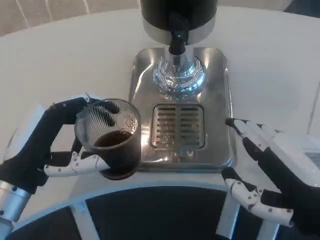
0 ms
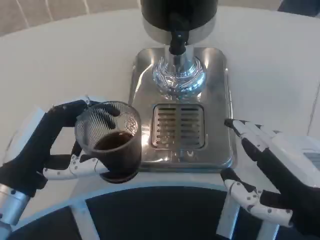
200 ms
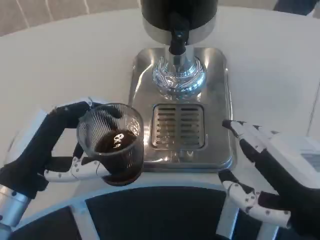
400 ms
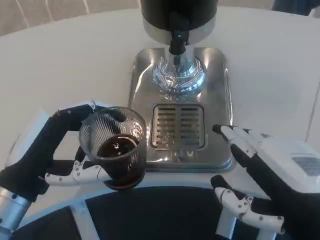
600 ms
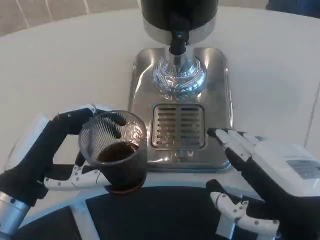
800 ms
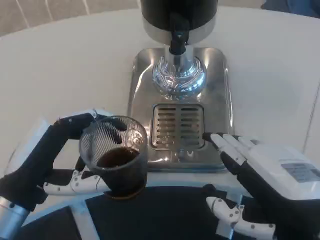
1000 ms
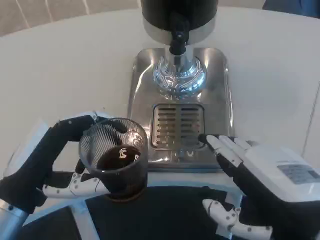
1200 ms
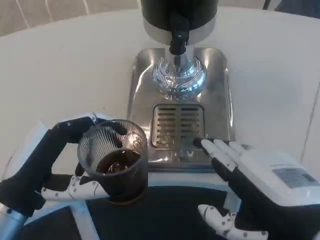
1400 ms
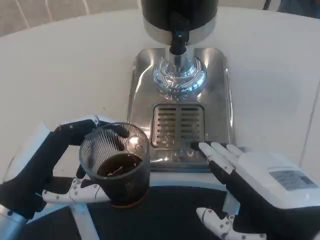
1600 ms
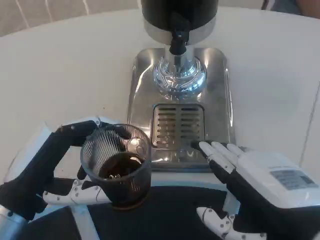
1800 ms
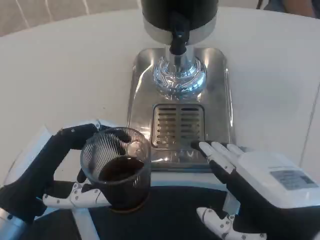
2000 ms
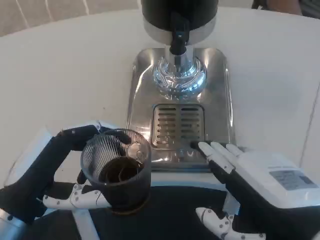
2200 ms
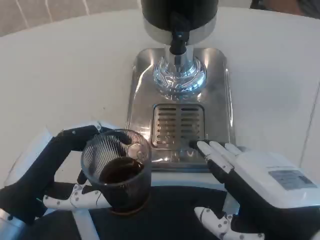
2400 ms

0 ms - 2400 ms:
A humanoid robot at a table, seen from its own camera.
Task of the whole recording: Grasp the cup under the faucet to collect the drink, then remove the cup.
1200 ms - 2400 ms: Neither hand changes place.

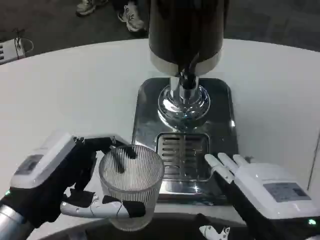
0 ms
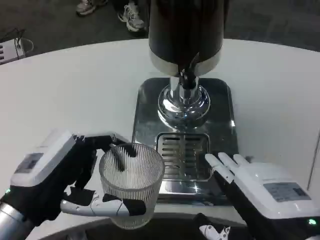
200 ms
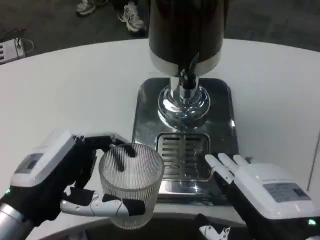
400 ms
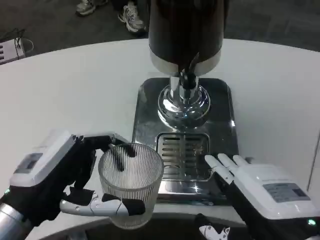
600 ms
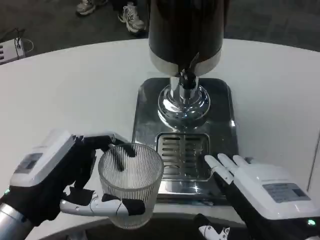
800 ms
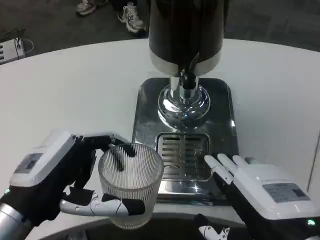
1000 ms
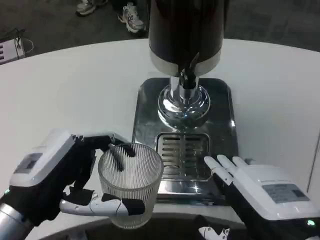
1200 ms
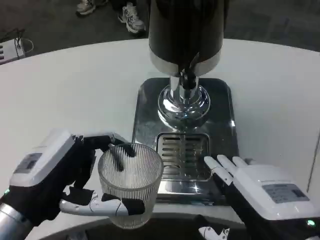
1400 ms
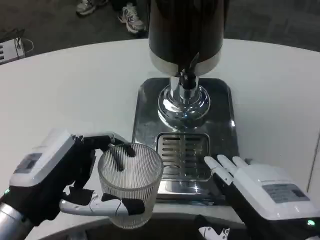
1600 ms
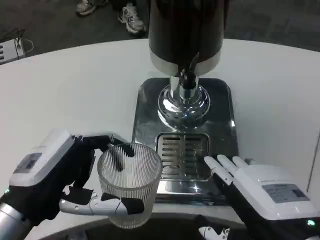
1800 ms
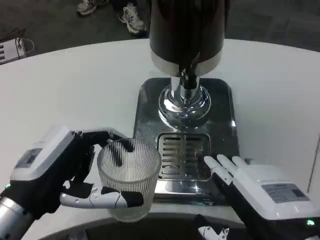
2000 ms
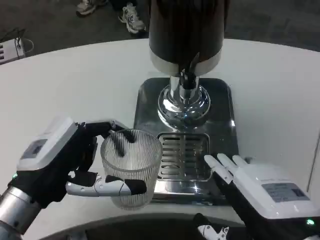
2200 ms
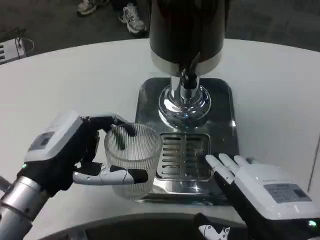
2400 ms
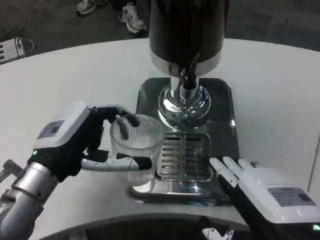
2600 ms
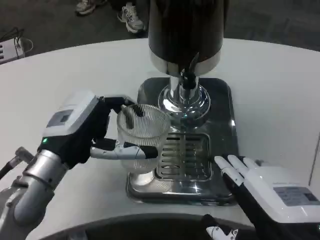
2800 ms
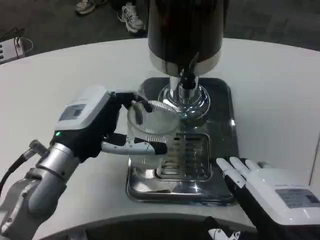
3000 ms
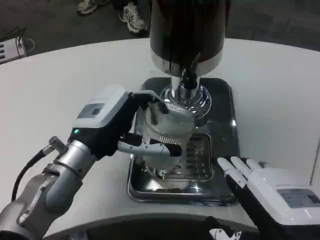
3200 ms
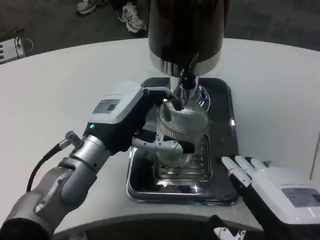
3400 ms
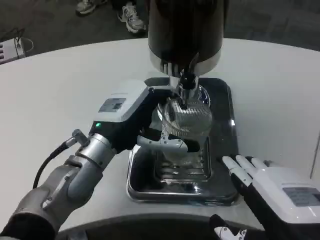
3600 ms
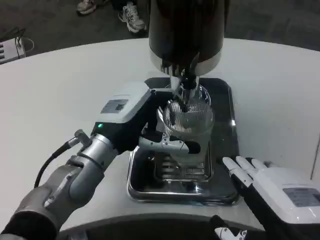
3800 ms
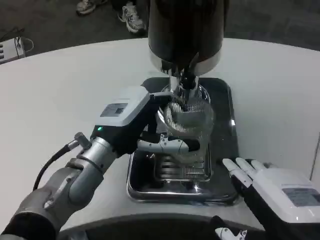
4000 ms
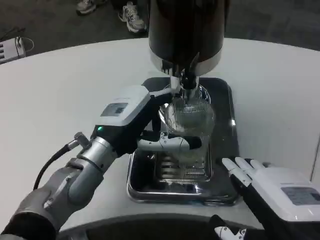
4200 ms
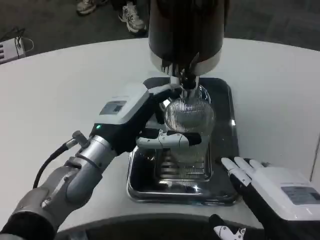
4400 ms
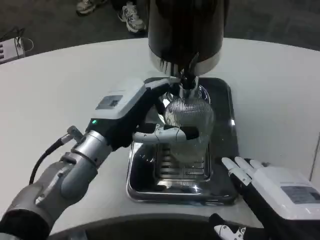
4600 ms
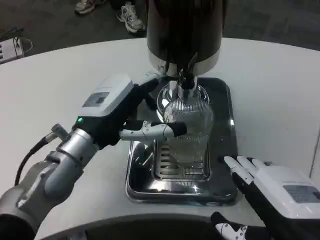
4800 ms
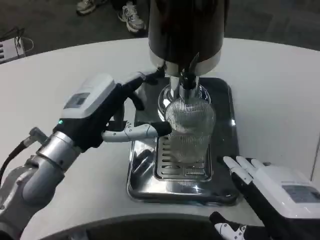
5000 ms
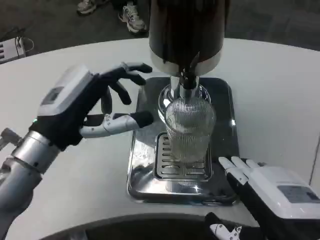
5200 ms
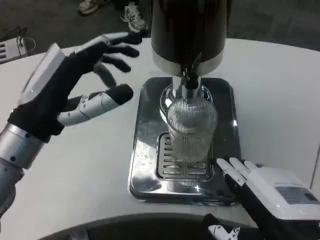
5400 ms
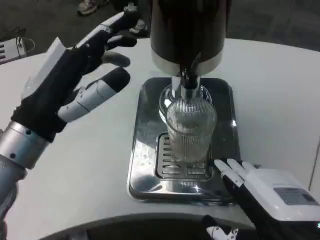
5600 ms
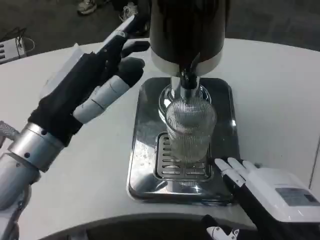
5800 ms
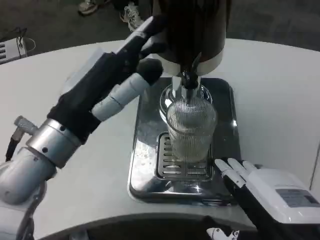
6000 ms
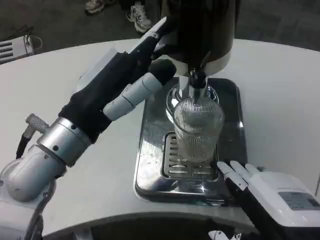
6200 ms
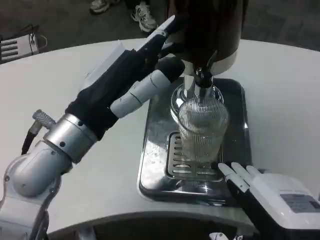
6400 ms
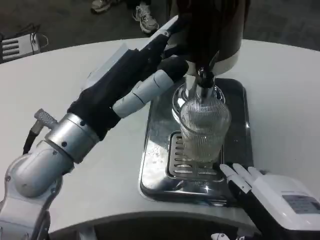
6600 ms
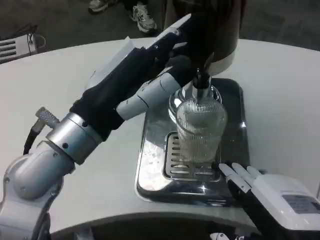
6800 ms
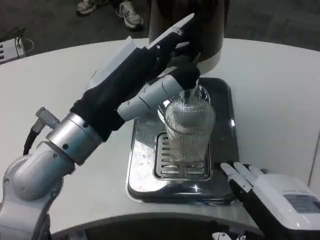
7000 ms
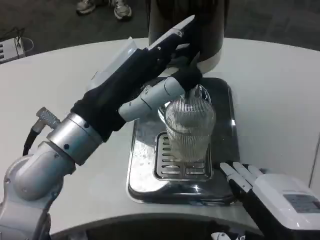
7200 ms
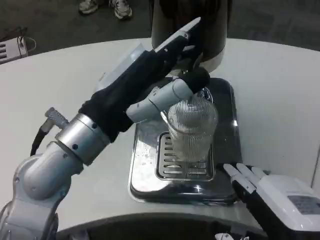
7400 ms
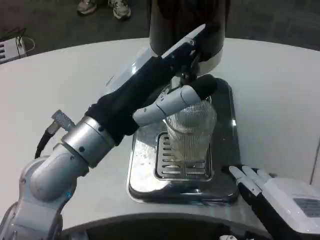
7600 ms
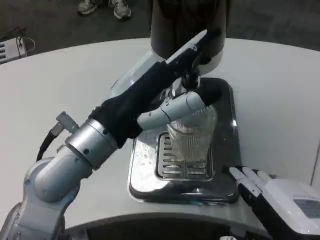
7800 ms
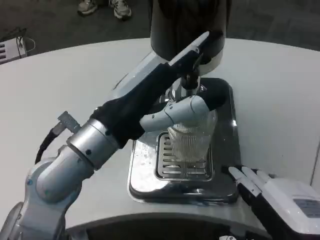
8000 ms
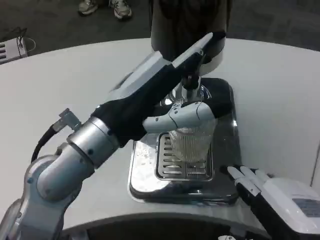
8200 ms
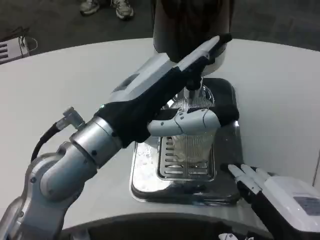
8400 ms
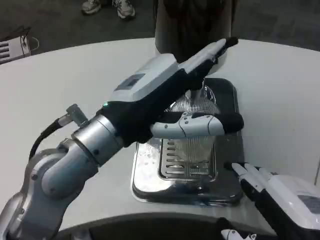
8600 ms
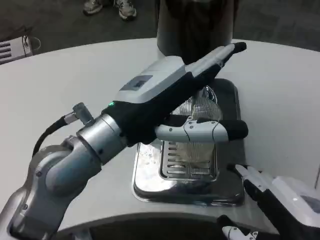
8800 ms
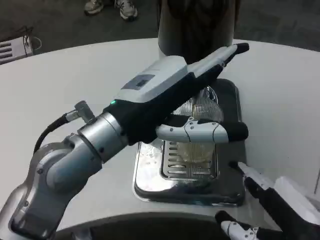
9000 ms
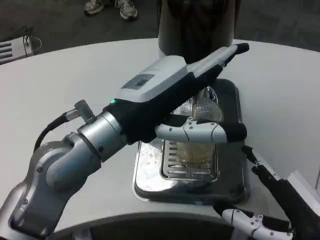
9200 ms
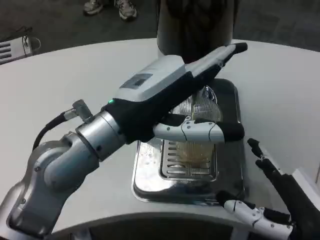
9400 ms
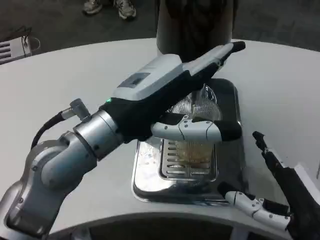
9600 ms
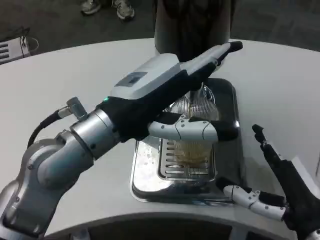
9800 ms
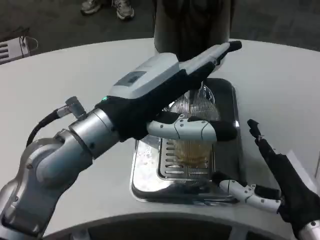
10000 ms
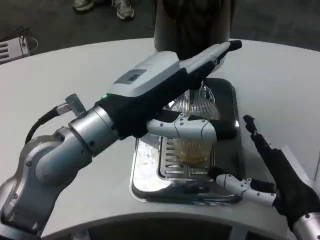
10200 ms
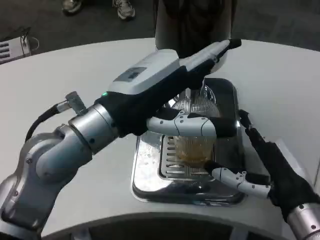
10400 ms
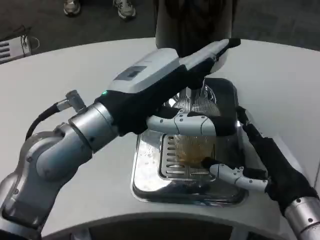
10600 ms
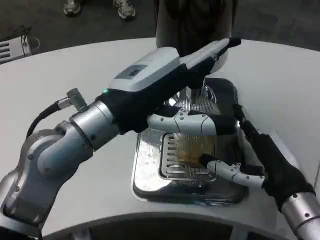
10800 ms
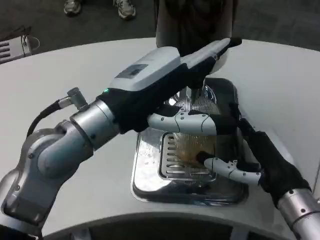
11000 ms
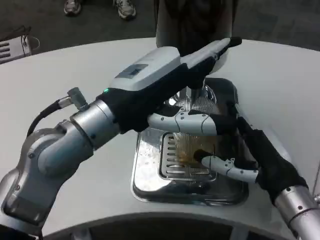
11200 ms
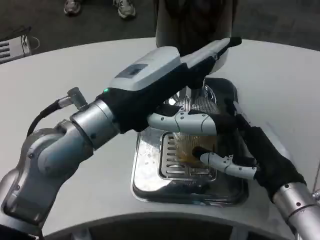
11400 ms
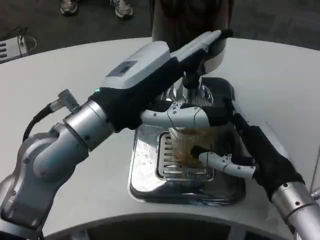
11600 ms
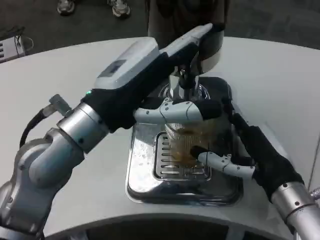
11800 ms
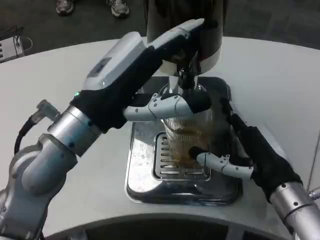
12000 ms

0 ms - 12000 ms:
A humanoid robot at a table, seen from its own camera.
Task of the whole recording: Grasp the cup under the faucet to collect the drink, then remove the cup.
0 ms - 1600 ms: The two hands keep their place.
1600 ms - 3000 ms: The left hand shifts about 10 cm forward.
4400 ms - 6000 ms: The left hand shifts about 10 cm backward and upward.
9000 ms - 10400 ms: The right hand is displaced forward by approximately 10 cm.

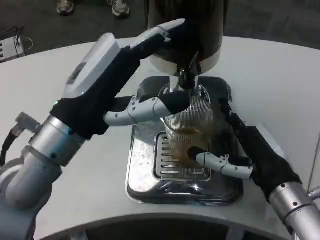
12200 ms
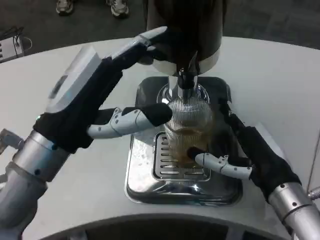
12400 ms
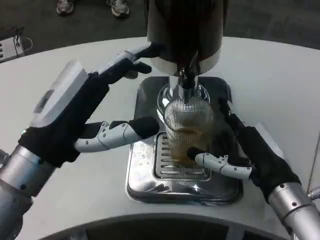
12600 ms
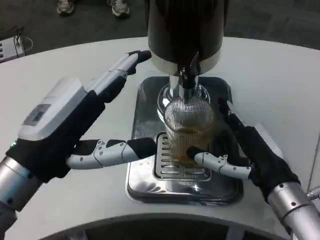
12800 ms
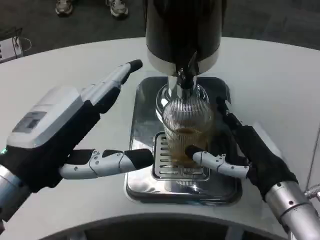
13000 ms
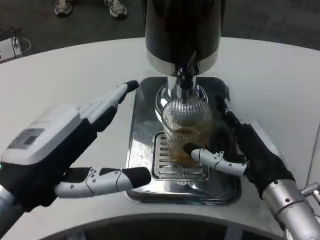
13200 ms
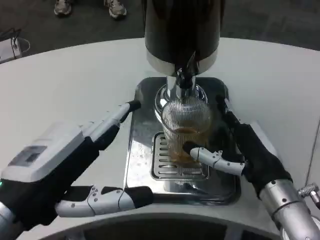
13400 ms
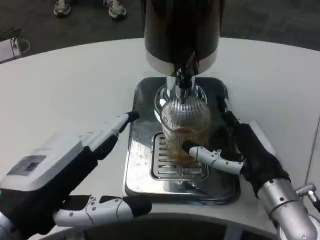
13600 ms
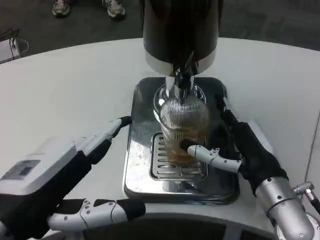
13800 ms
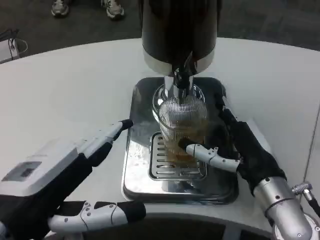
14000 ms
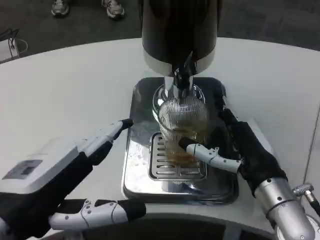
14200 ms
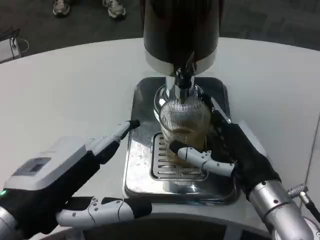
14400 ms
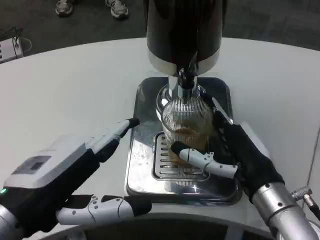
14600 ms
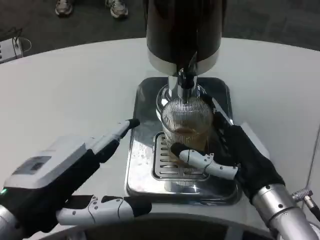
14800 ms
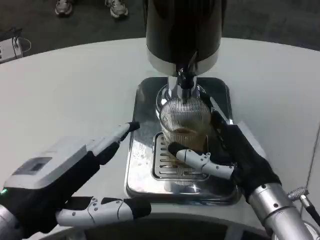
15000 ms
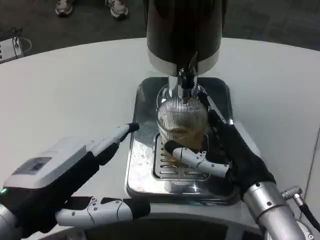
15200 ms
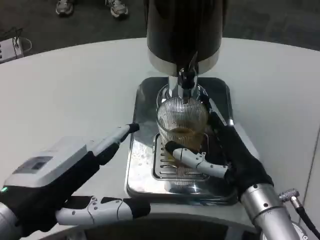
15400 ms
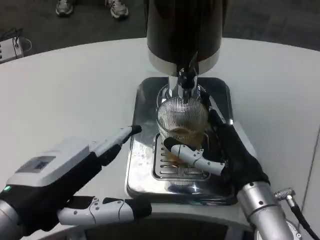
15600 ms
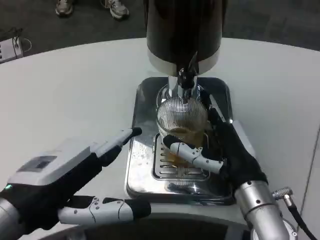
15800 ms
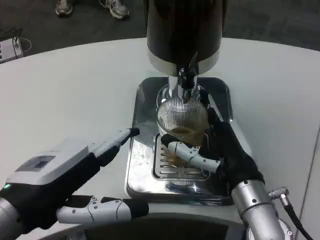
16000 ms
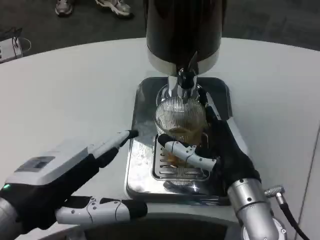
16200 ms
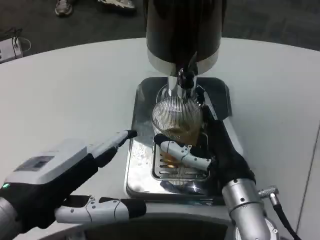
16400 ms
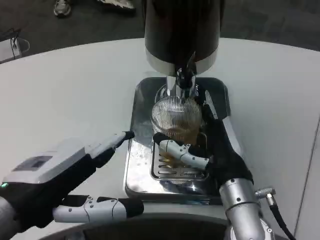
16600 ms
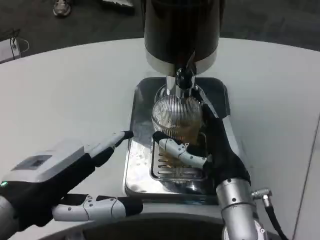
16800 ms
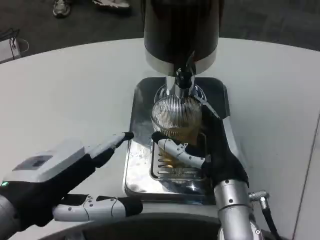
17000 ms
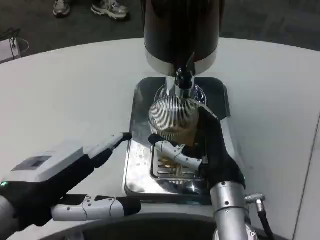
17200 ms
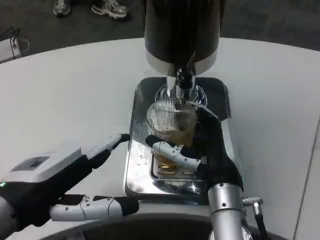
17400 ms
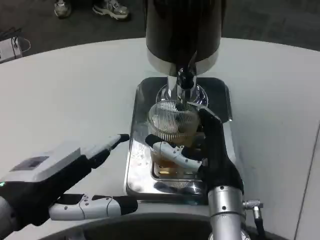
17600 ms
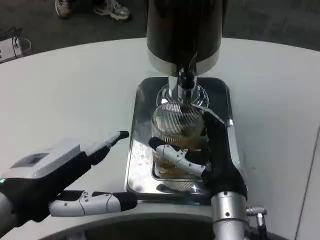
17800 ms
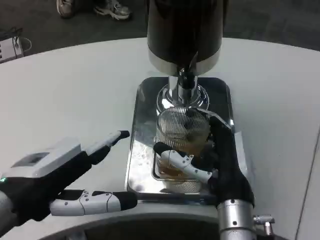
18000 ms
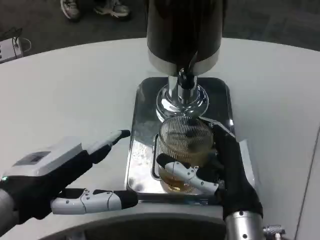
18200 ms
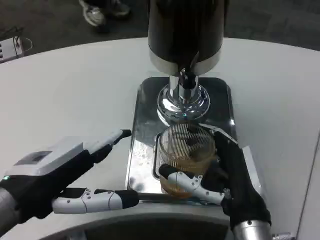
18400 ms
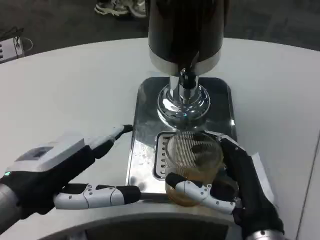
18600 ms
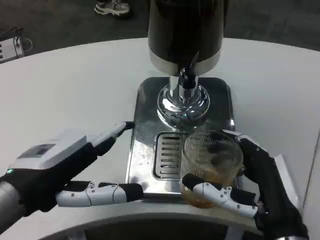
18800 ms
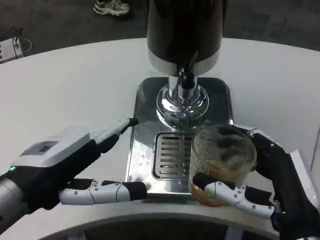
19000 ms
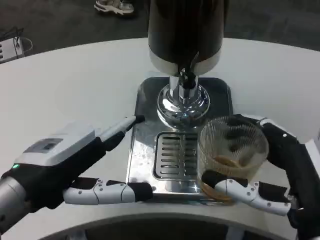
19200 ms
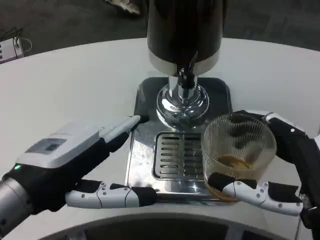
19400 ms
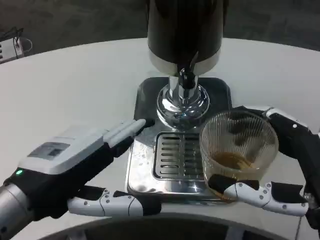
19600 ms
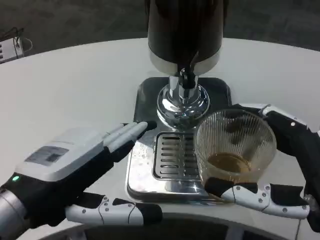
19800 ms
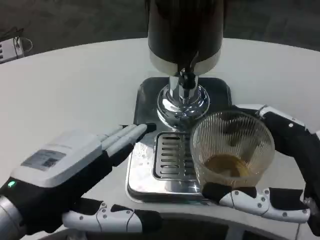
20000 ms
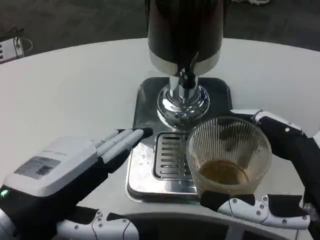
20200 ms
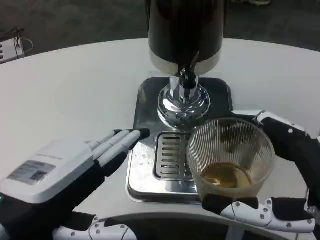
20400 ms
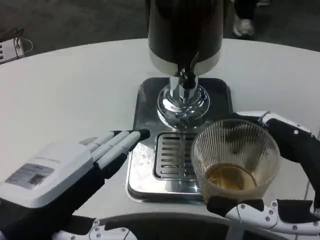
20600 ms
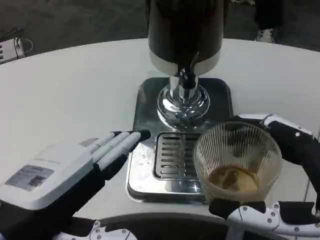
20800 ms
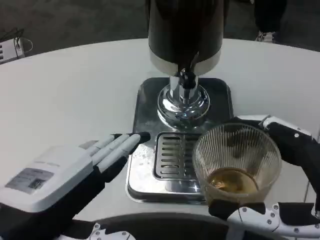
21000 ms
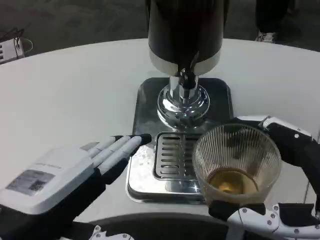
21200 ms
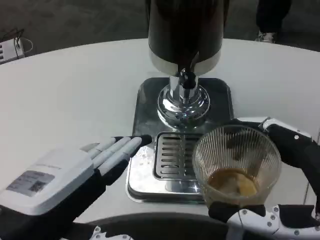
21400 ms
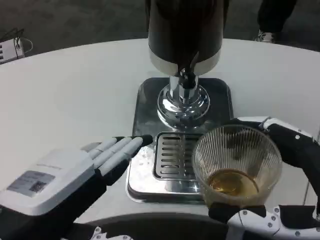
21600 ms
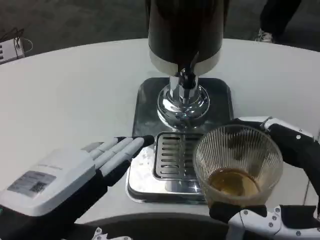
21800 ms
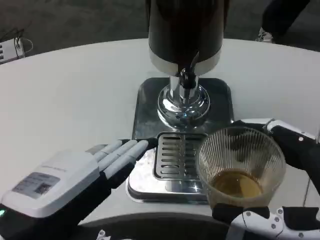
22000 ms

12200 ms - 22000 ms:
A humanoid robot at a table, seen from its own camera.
Task of the whole recording: Grasp the cup under the faucet to collect the drink, then remove the cup.
12200 ms - 13600 ms: The left hand is displaced backward by about 10 cm.
13600 ms - 16400 ms: The hands move only a little.
16400 ms - 17800 ms: The hands make only small movements.
17800 ms - 19200 ms: The right hand is displaced to the right and backward by roughly 15 cm.
19200 ms - 20600 ms: The left hand travels backward by roughly 5 cm. Meanwhile the right hand moves approximately 5 cm.
